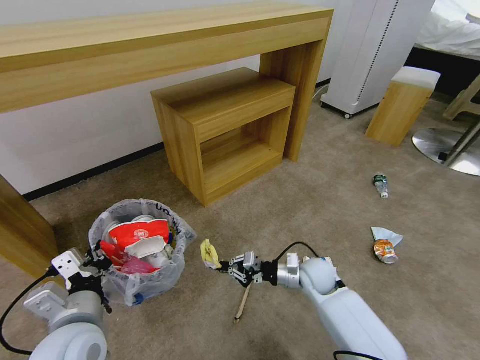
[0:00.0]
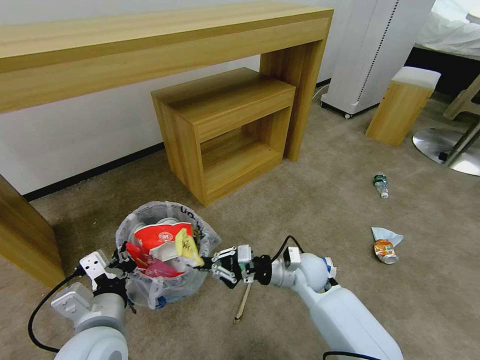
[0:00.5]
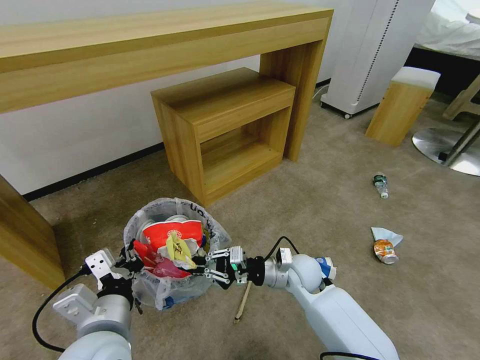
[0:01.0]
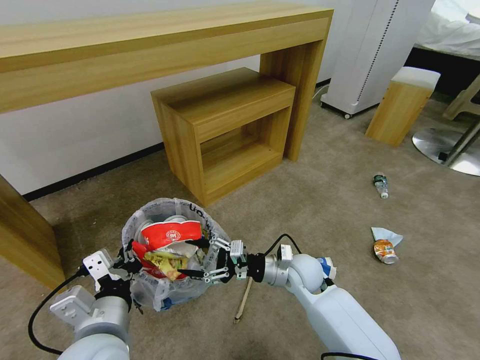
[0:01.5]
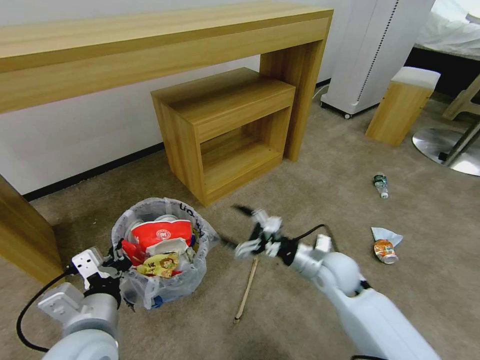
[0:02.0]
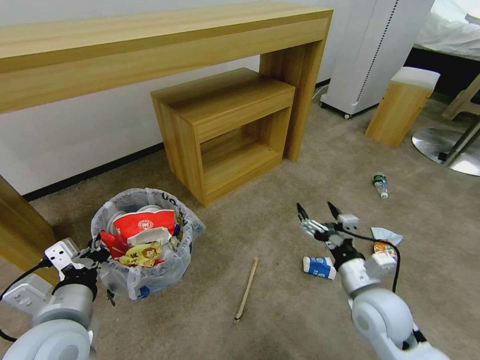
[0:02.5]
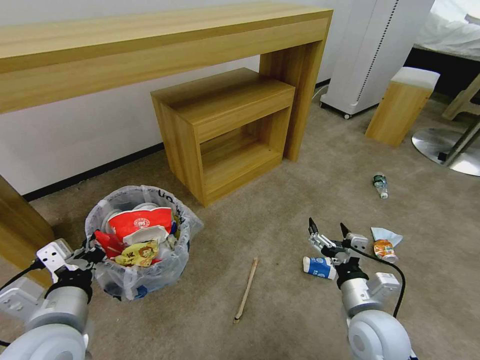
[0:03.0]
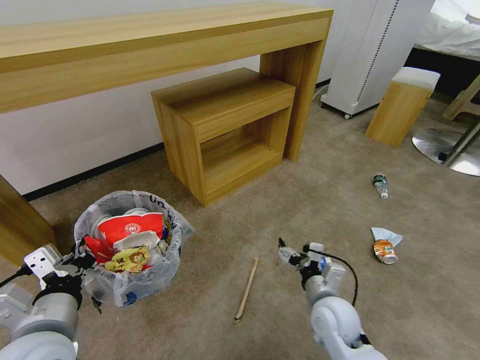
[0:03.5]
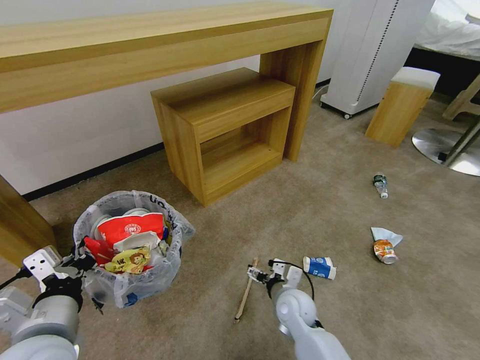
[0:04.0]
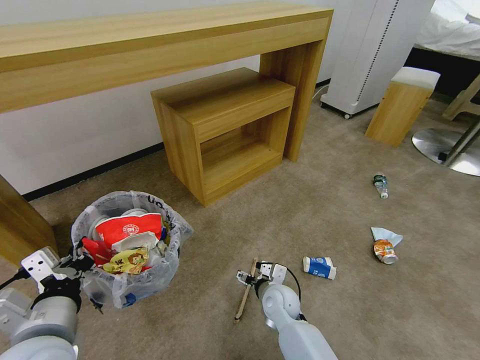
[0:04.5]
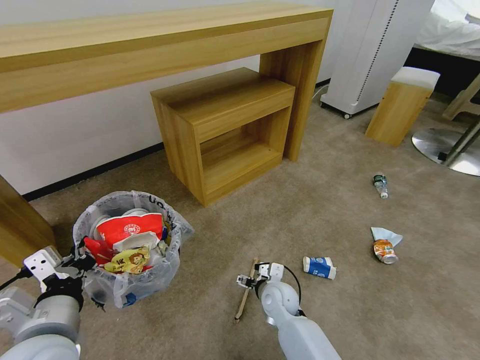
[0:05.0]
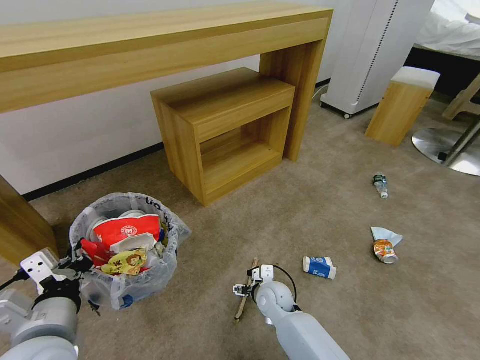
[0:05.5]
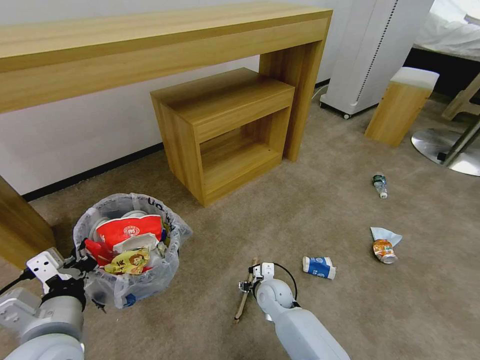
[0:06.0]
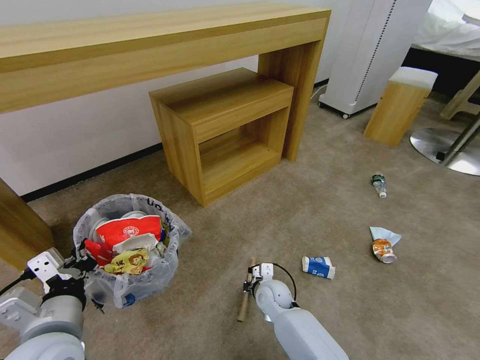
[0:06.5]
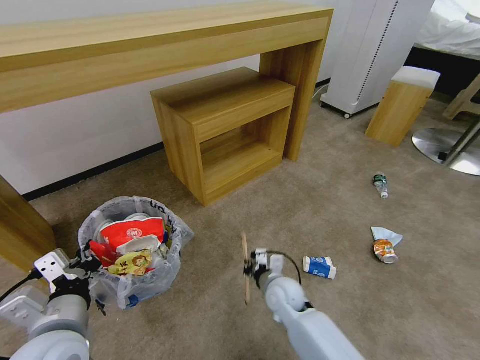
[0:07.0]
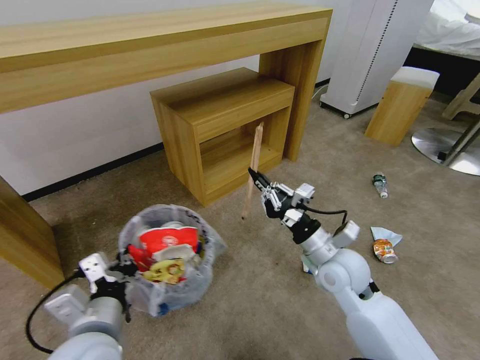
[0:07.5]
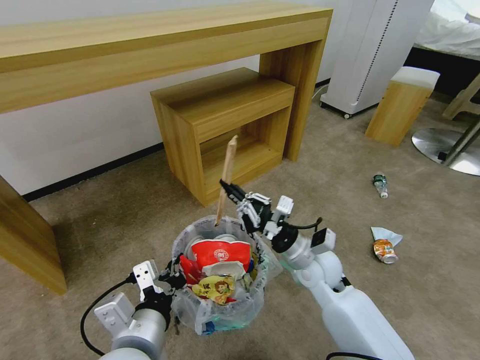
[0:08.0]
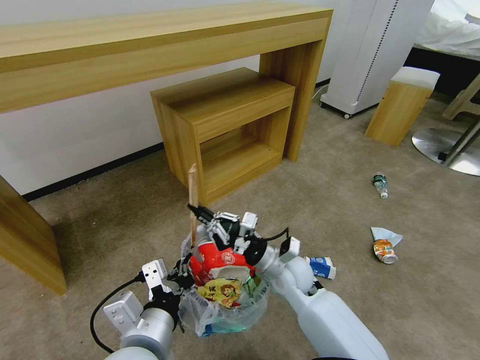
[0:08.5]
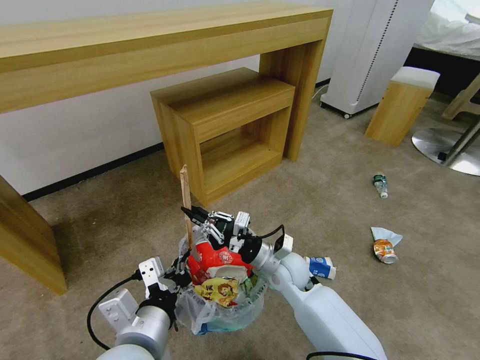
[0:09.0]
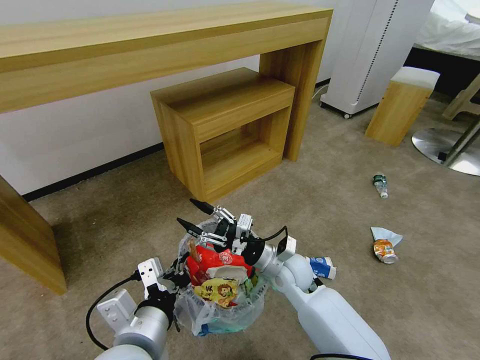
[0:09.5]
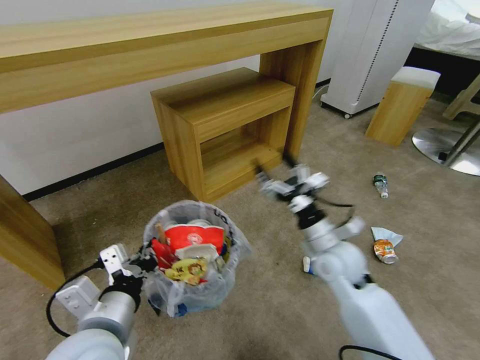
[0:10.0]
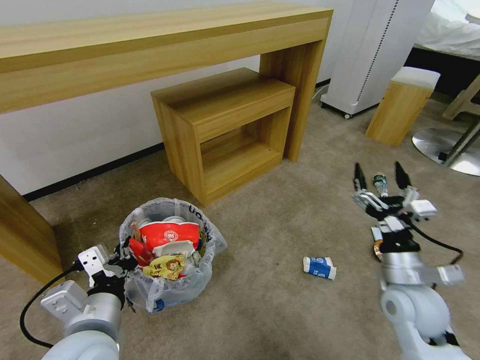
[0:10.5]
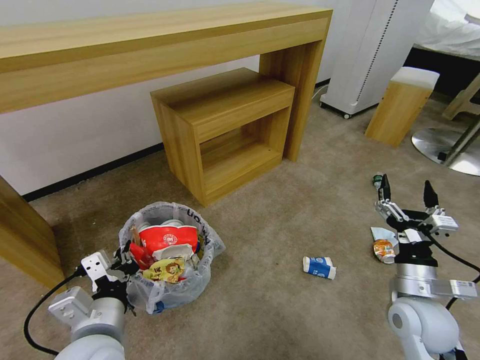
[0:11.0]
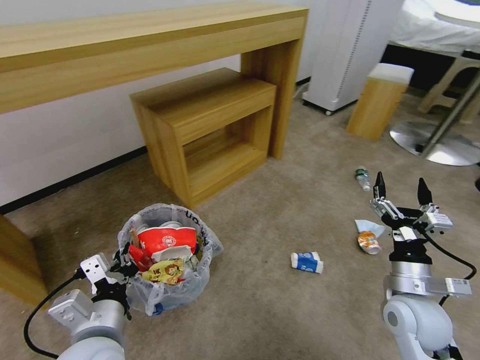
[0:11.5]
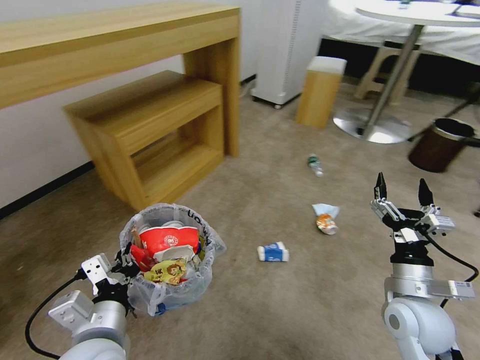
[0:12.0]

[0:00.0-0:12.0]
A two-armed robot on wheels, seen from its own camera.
Task of the whole recording: Pick up the trash bin and place the garbage on the floor into it.
0:00.0 to 0:02.0: The right gripper travels upward by some 20 cm, and opens up; the left gripper shifts approximately 5 cm to the right.
0:02.0 to 0:04.0: The right gripper moves backward, roughly 10 cm. The left gripper heads to the left, covering approximately 5 cm.
0:04.0 to 0:06.0: The right gripper shifts about 15 cm downward, to the left and forward.
0:06.0 to 0:08.0: The left gripper travels to the right by some 10 cm; the right gripper shifts roughly 20 cm upward, and closes up.
0:08.0 to 0:10.0: The left gripper changes place by about 5 cm. Meanwhile the right gripper opens.
0:10.0 to 0:12.0: The right gripper shifts roughly 15 cm to the right and backward.

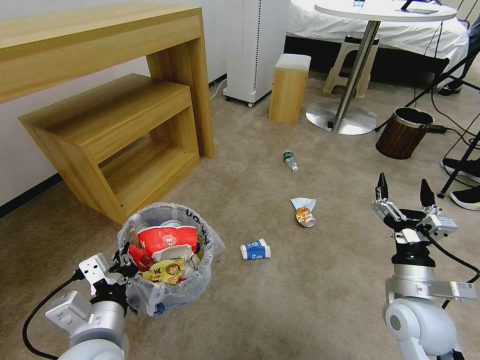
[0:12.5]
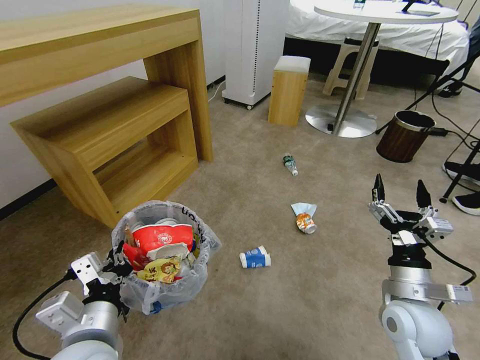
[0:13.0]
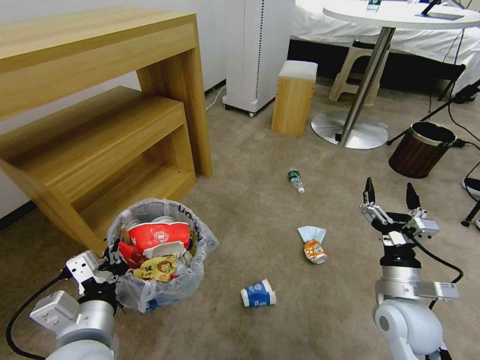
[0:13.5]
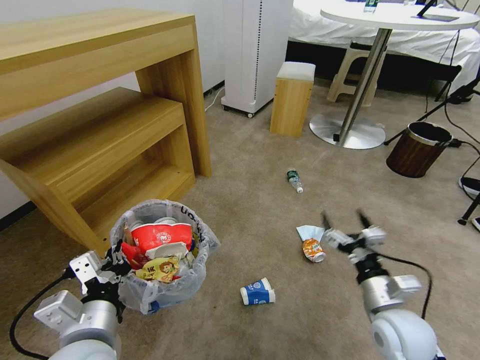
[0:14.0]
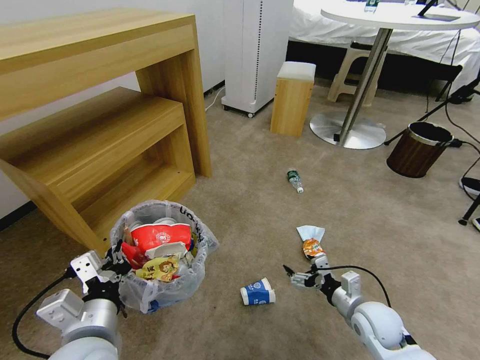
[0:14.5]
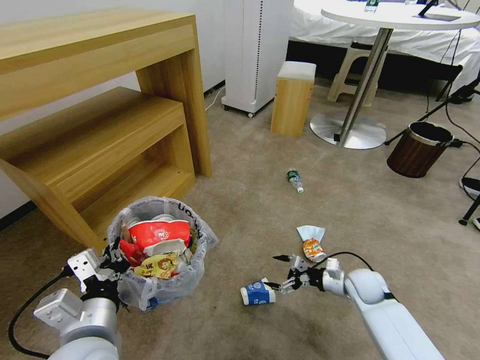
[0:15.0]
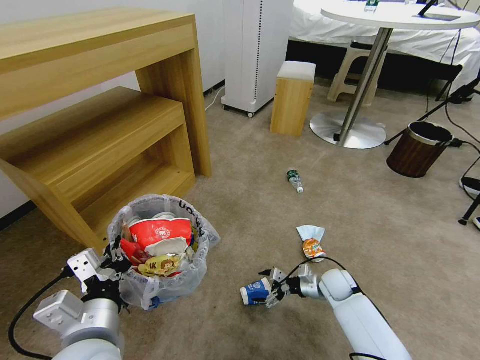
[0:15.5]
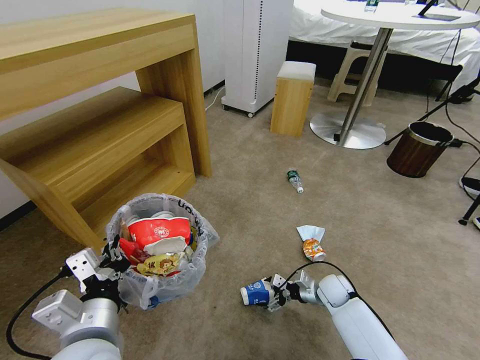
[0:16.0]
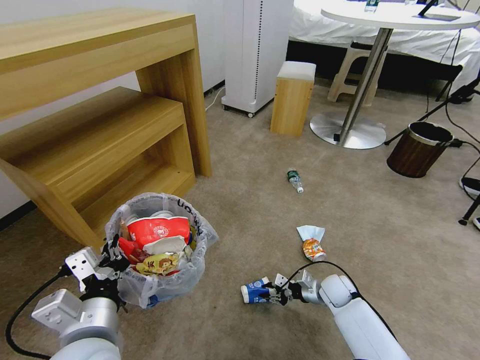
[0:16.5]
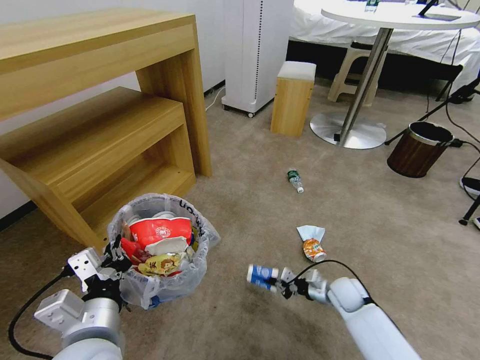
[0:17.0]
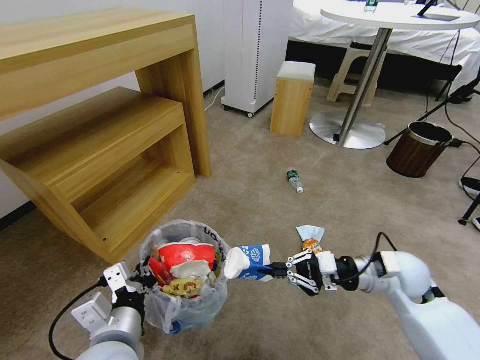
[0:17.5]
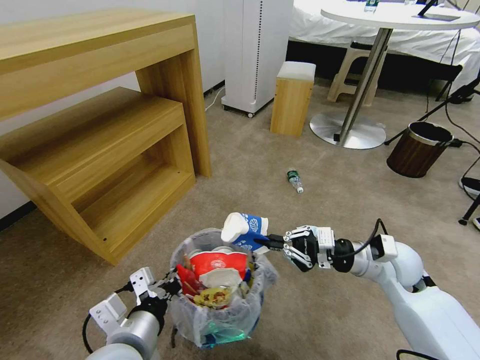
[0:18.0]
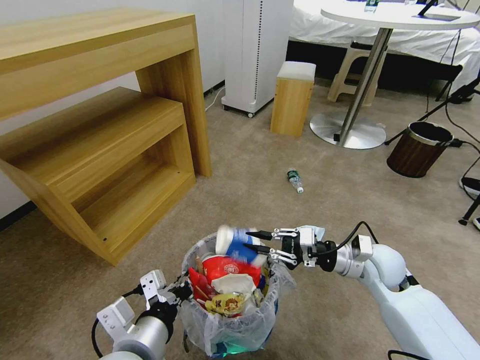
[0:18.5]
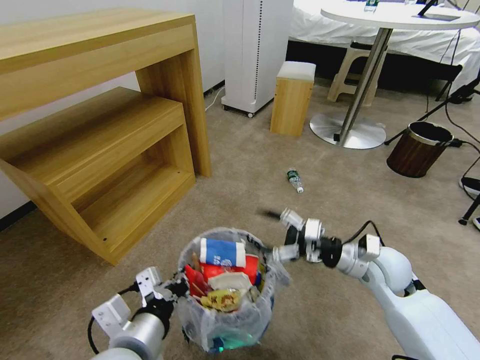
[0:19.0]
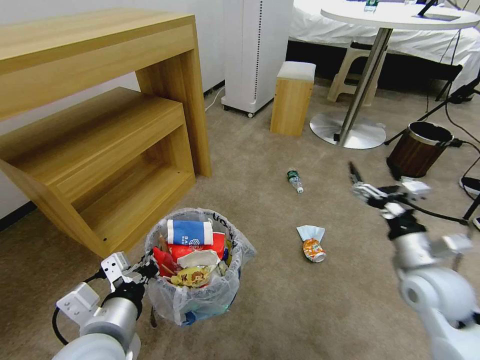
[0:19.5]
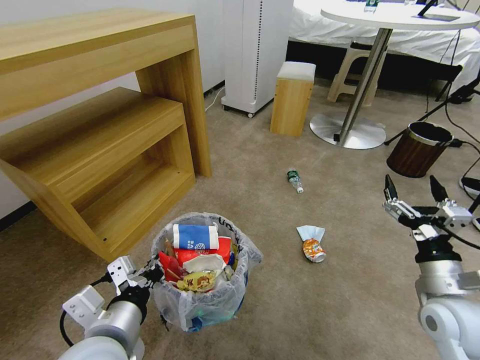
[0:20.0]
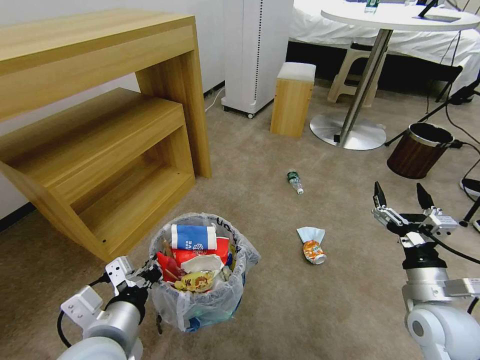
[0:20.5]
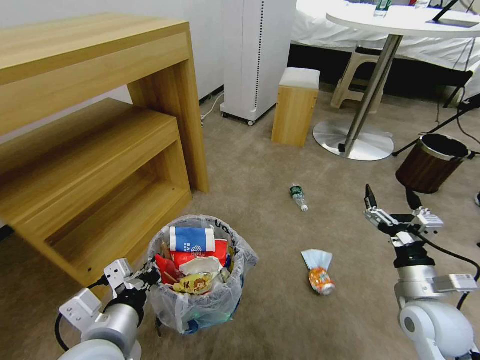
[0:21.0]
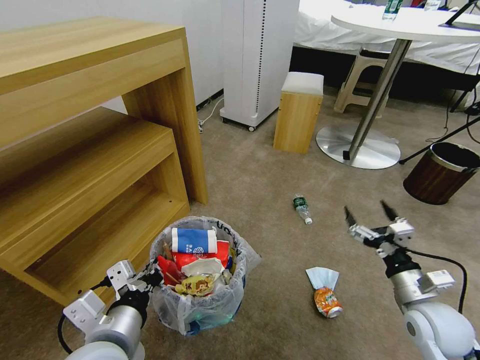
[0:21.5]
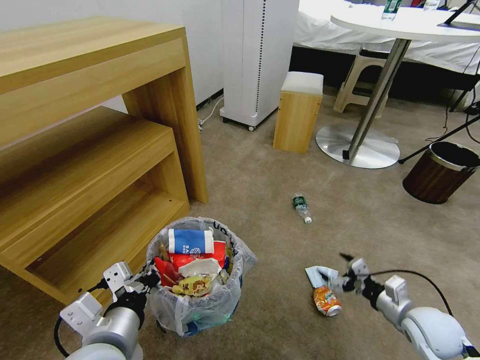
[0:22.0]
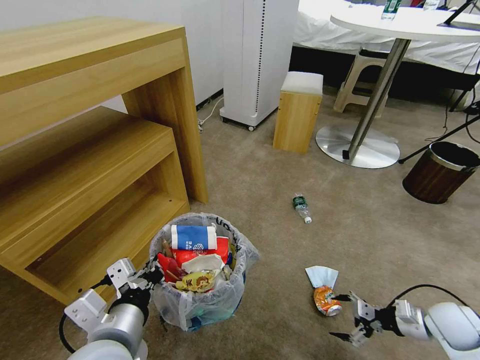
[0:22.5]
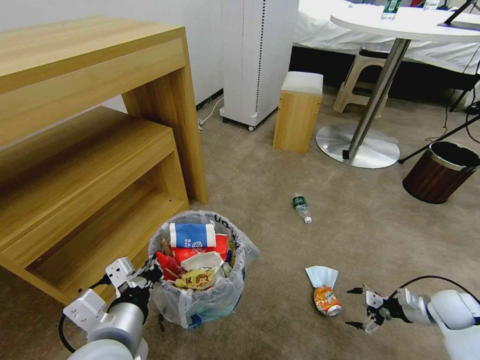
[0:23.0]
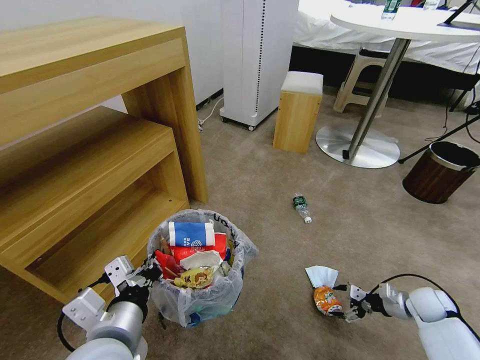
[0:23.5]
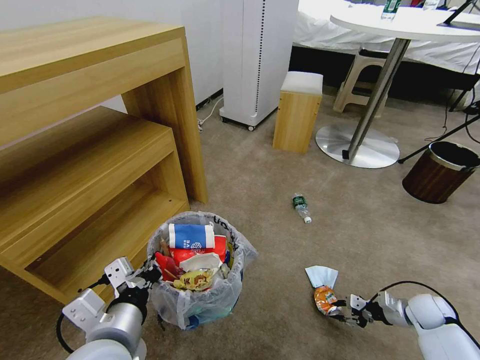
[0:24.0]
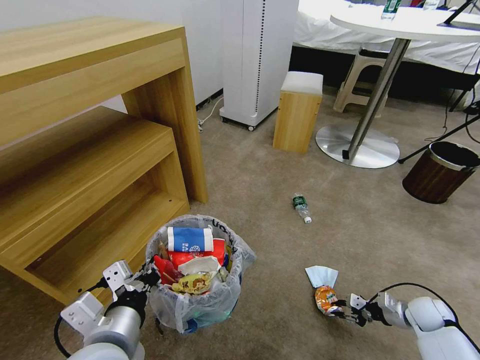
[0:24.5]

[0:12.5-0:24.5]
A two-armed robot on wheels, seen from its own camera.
Task of the whole recording: Pick up the trash bin and place the garbage on the floor into it.
0:12.5 to 0:14.5: The right gripper goes about 10 cm downward.
0:14.5 to 0:16.5: The right gripper heads forward and downward, covering some 15 cm, and closes.
0:16.5 to 0:18.5: The right gripper shifts roughly 20 cm upward.
0:18.5 to 0:20.5: The right gripper travels backward and to the right by roughly 15 cm, and opens up.
0:20.5 to 0:22.5: The right gripper travels to the right and downward by roughly 15 cm.
0:22.5 to 0:24.5: The right gripper shifts roughly 10 cm downward, and closes up.

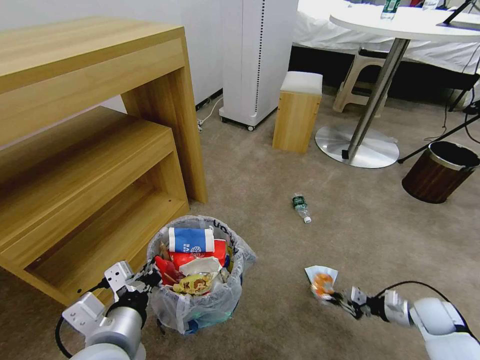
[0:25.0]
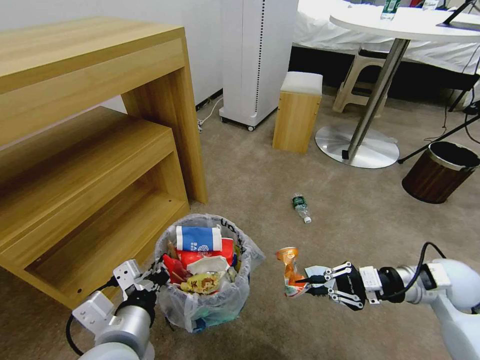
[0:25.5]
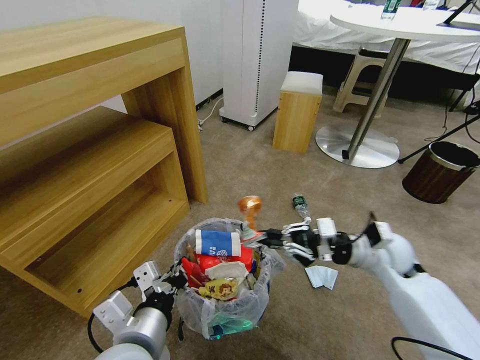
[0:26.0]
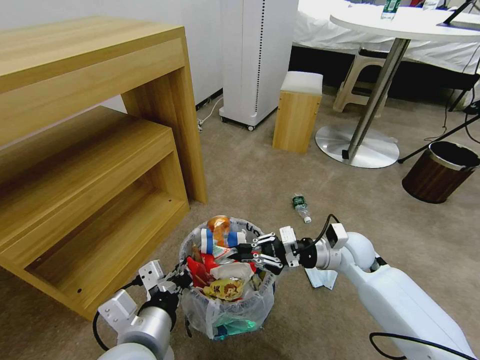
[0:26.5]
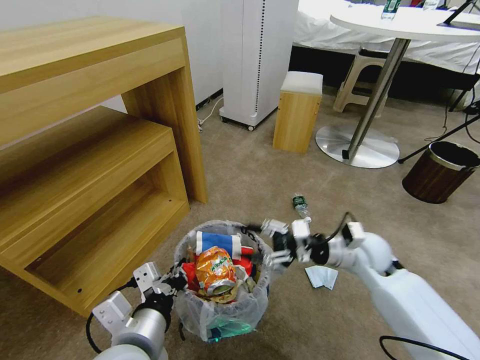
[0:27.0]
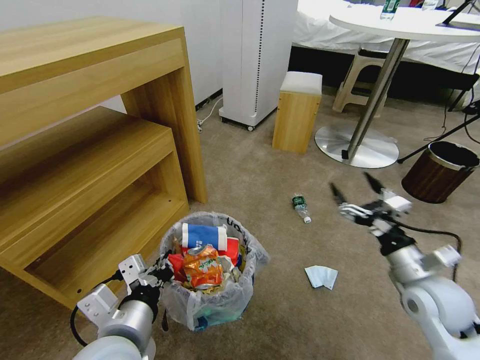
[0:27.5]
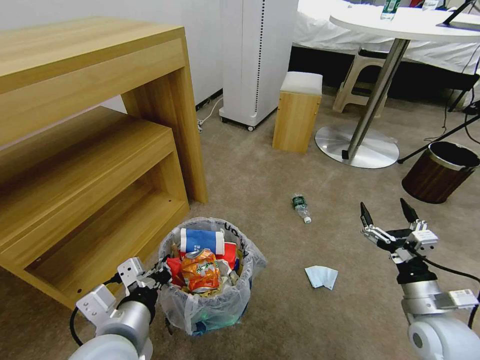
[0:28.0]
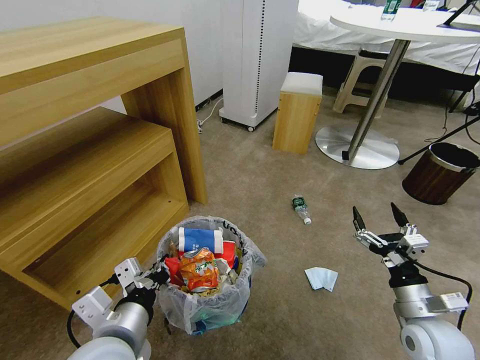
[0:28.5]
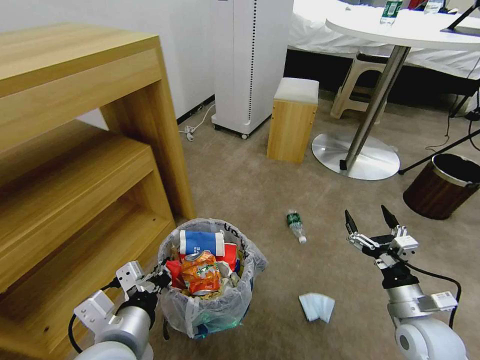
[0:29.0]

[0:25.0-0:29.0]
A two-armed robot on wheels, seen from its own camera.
Task of the whole recording: Pick up the trash bin and place the garbage on the floor into it.
0:25.0 to 0:27.0: The right gripper shifts roughly 25 cm to the left and upward, and opens.
0:27.0 to 0:29.0: The right gripper heads backward and to the right, covering some 20 cm, and opens up.
